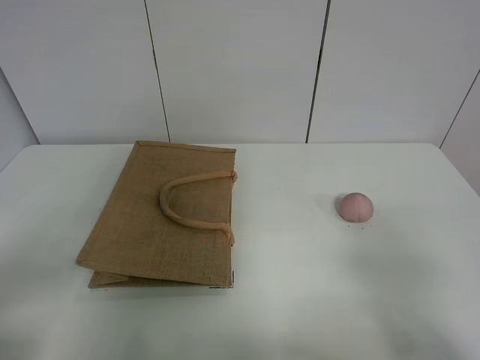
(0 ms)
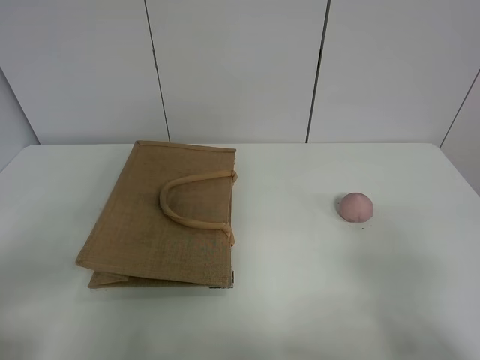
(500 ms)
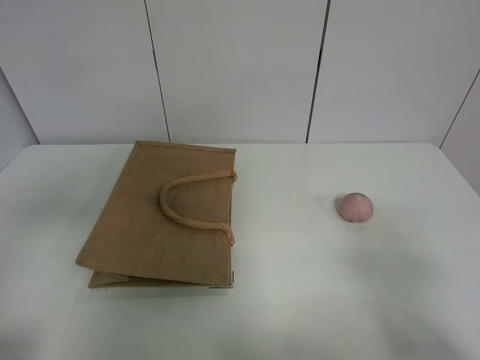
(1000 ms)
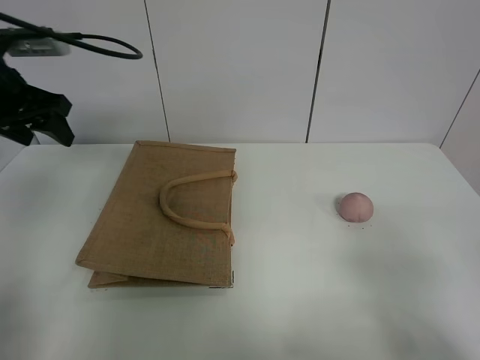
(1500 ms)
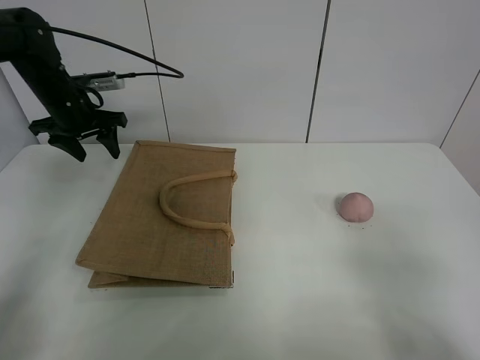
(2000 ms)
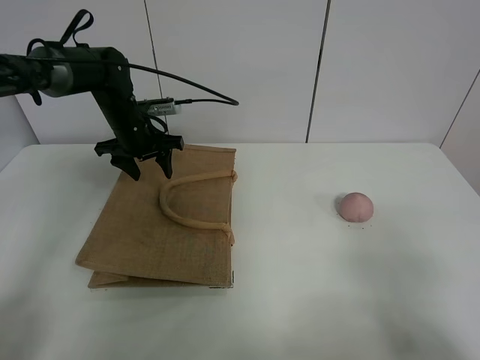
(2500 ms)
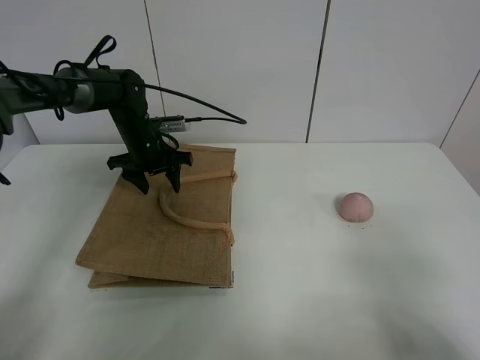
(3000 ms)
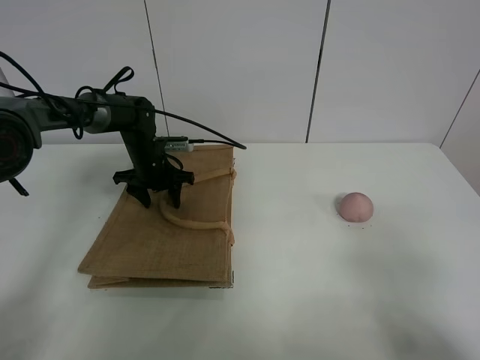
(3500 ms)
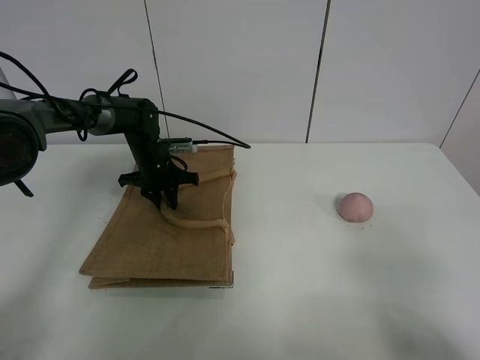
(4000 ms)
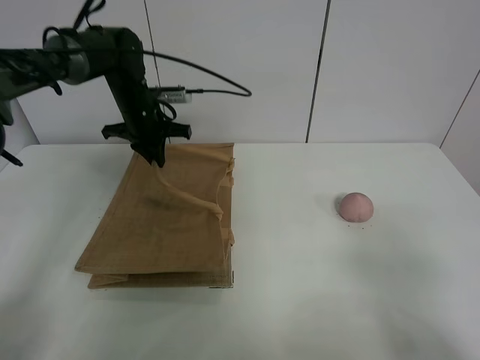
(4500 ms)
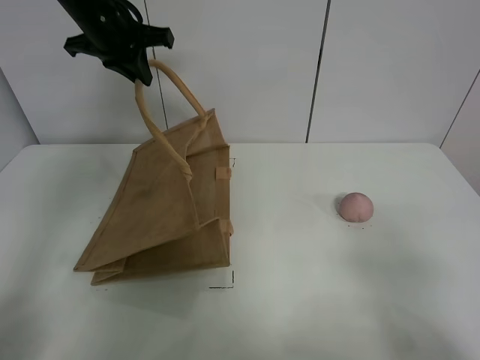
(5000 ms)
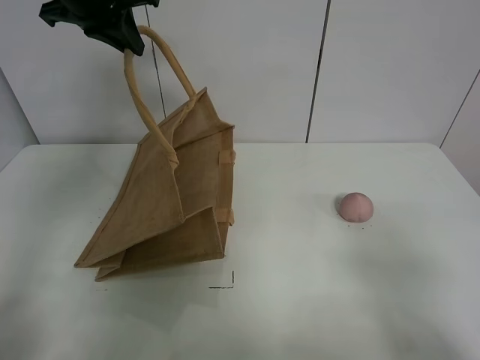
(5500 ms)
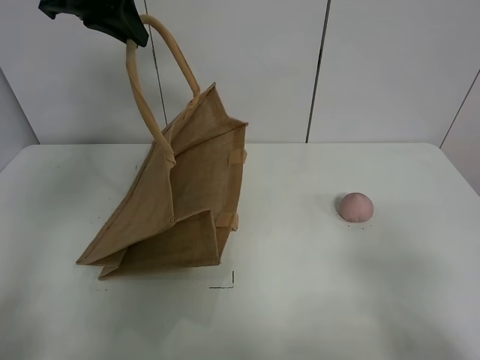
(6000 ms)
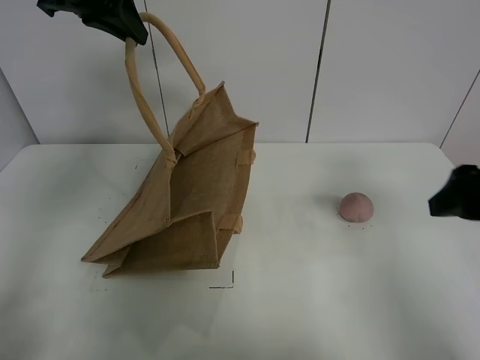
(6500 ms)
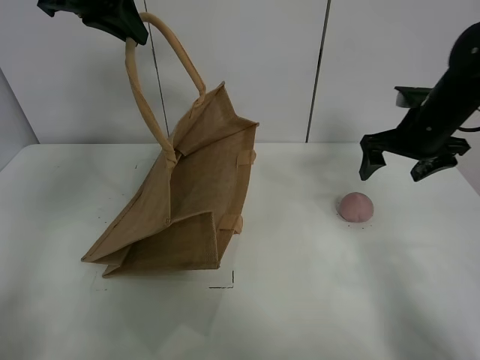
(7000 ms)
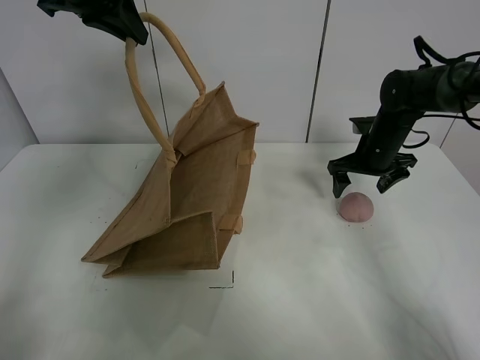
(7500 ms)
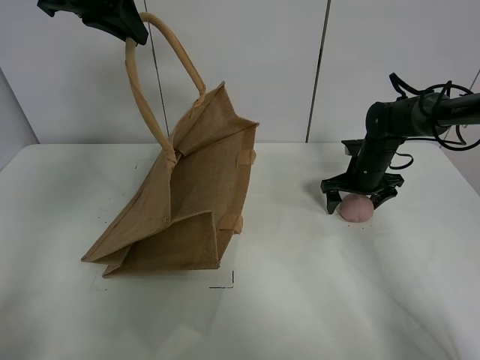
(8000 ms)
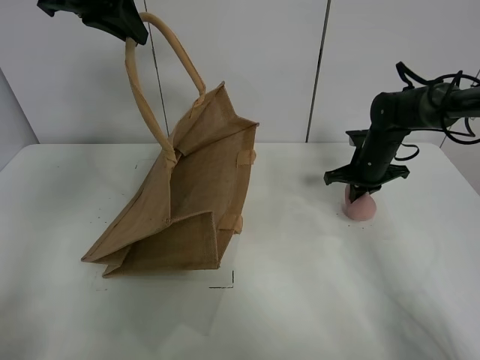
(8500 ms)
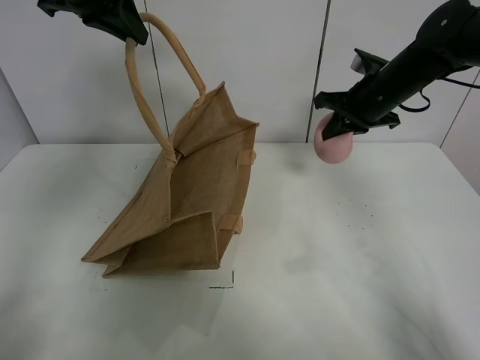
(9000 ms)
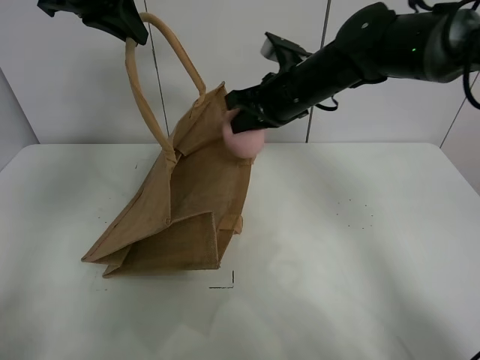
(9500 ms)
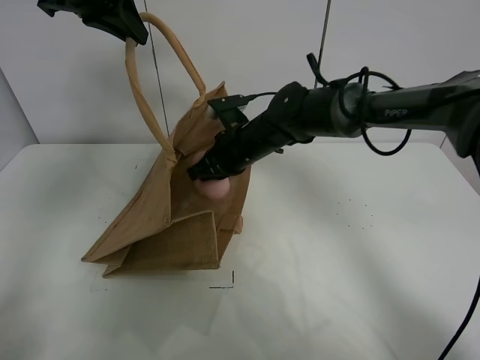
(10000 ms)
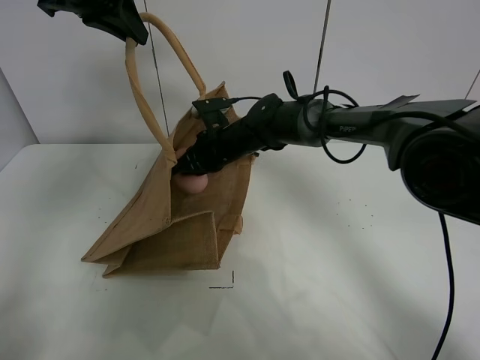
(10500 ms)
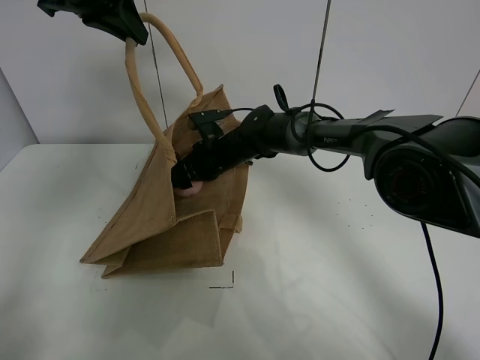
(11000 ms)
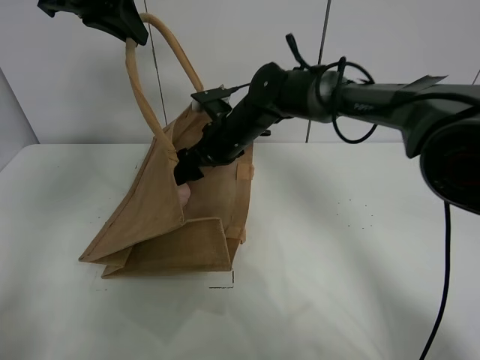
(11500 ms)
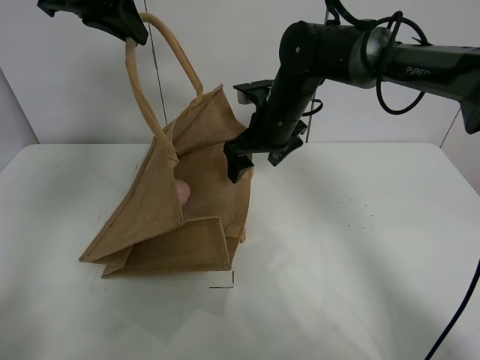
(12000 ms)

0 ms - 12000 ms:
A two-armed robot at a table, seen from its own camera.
Task of the whole recording: open the brown linen bag and put the peach in the bag.
Step, 0 ms - 5500 ms: Lift the handbag with left gripper.
Step, 6000 ms - 8000 ms: Grasp the peach with right gripper.
0 ms - 2000 ms: The left gripper is displaced forward by approximately 40 cm.
2000 ms - 4000 ms: The left gripper heads downward and to the right, covering about 15 cm, and closes up.
4000 ms - 6000 ms: The left gripper travels upward by about 35 cm.
6000 ms - 8000 ms: The right gripper travels forward by roughly 40 cm.
8000 ms - 10000 ms: The right gripper travels to the left by some 25 cm, and closes up.
10000 ms - 12000 ms: The right gripper moves upward, approximately 5 cm, and opens.

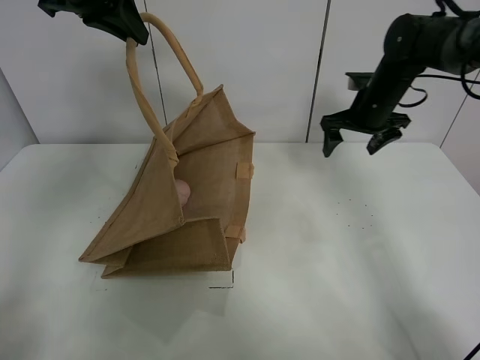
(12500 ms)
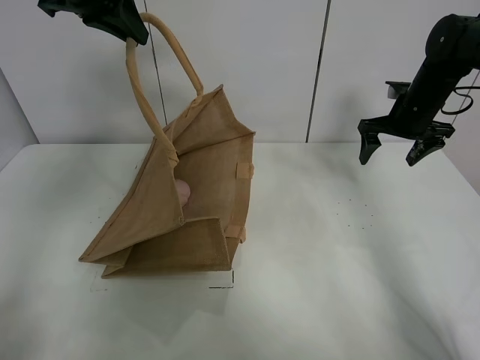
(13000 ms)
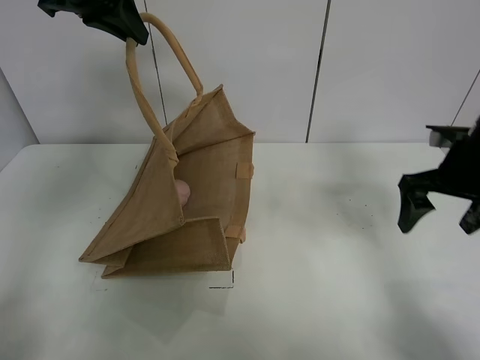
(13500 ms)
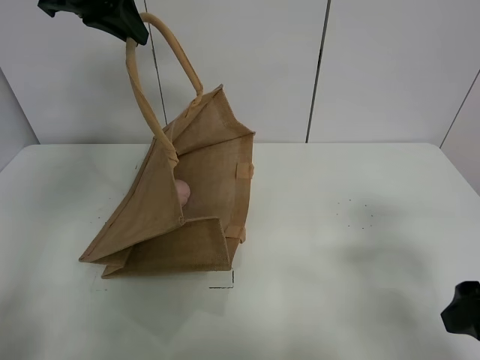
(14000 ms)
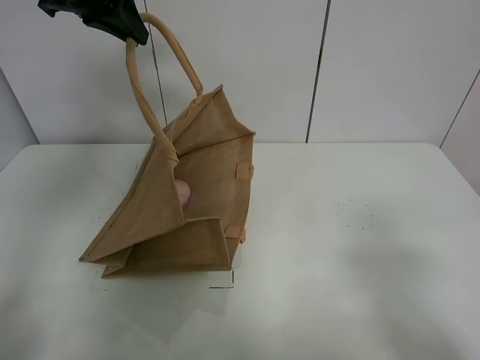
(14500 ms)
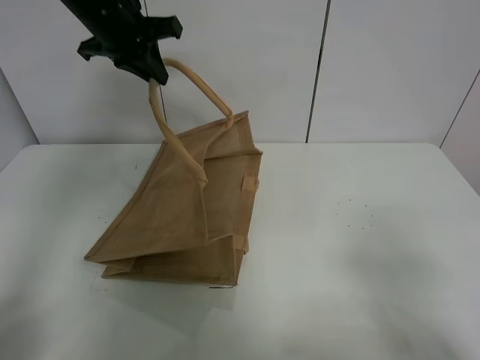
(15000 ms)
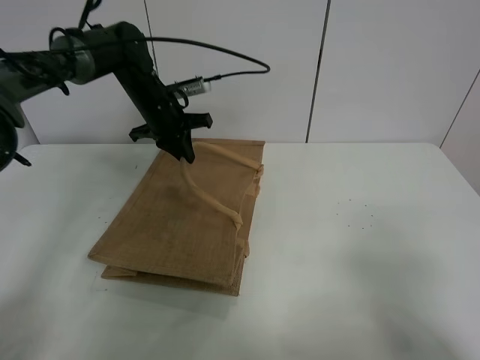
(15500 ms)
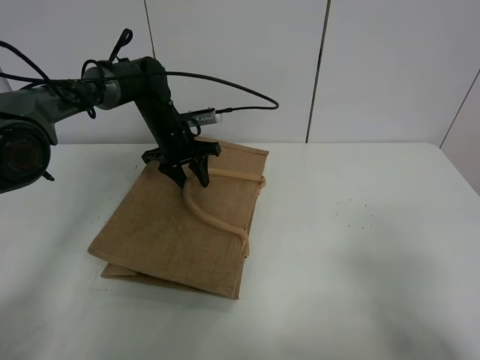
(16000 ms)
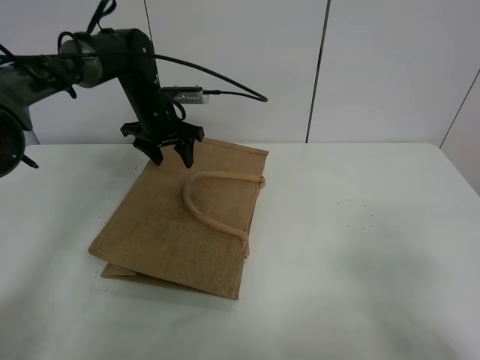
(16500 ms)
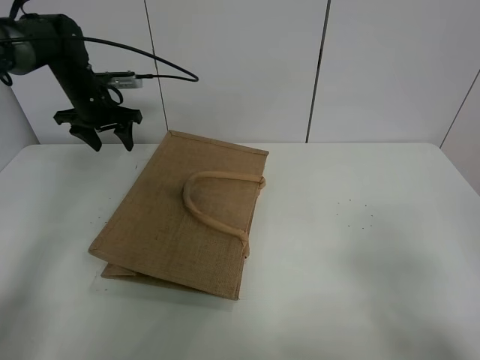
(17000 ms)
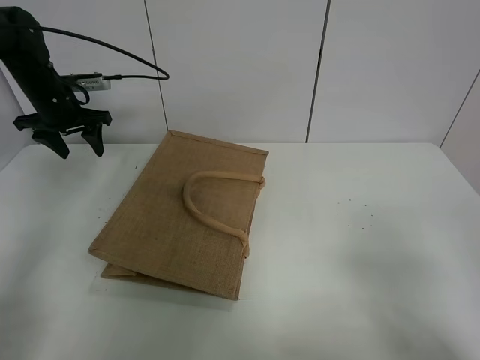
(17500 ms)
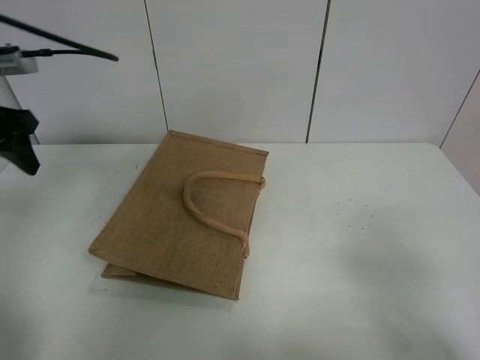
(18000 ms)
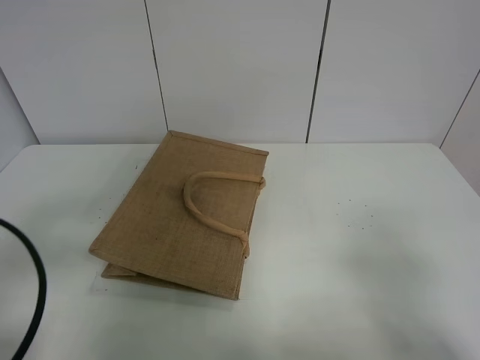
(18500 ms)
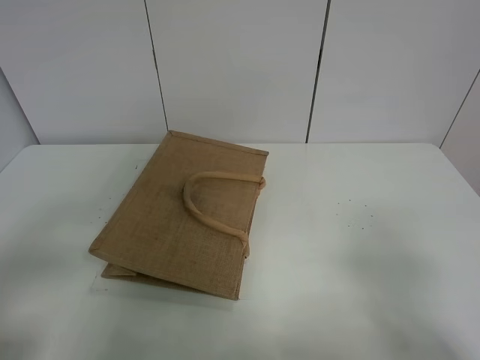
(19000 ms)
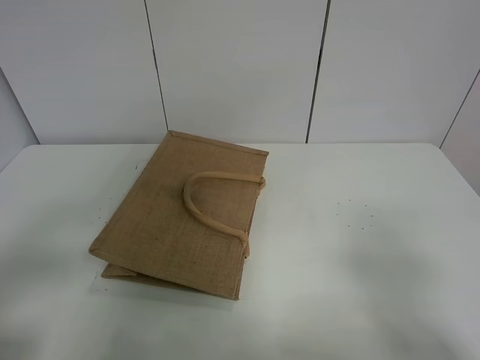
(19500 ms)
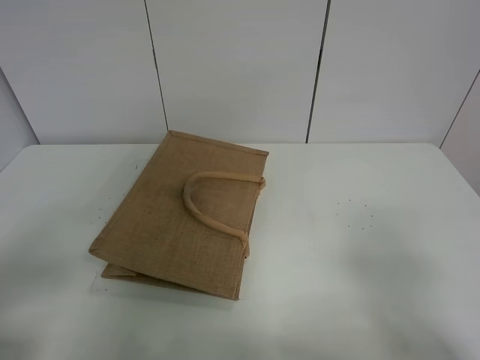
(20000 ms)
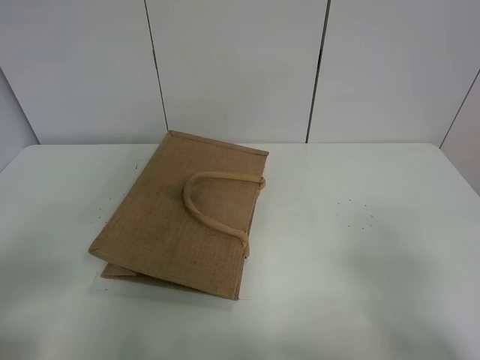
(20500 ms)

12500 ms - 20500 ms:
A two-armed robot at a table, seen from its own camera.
Task of the whole recording: open the brown linen bag and put the peach in the bag.
Step, 12500 ms - 16500 ms: Put down the handbag with left grippe.
12500 ms - 14500 ms: The right gripper is displaced backward by roughly 40 cm.
14500 ms - 16500 ms: The left gripper heads downward and forward, covering roughly 25 cm, and opens its fingers.
16500 ms - 18500 ms: The left gripper goes approximately 40 cm backward.
18500 ms - 20500 ms: The left gripper is displaced backward by approximately 5 cm.

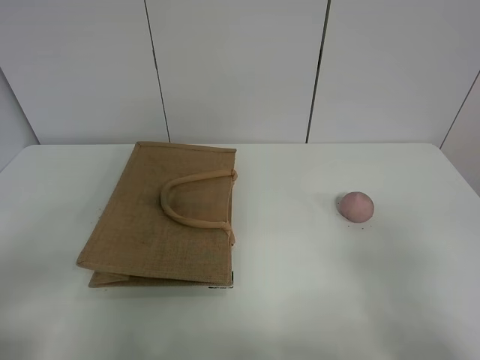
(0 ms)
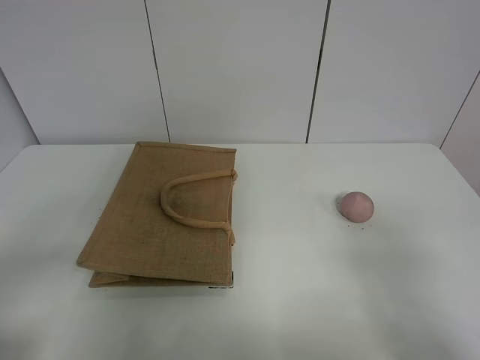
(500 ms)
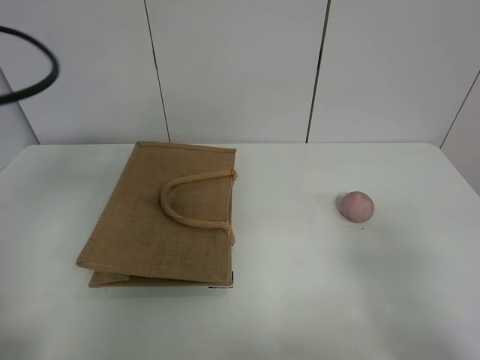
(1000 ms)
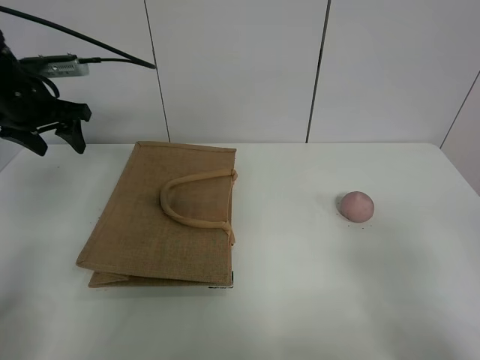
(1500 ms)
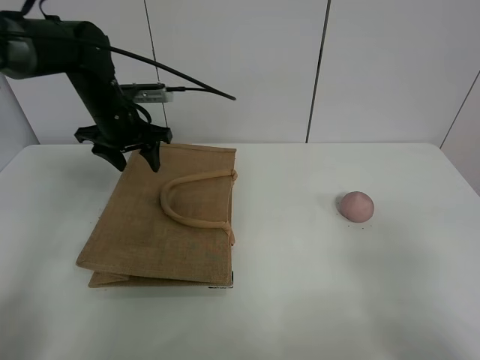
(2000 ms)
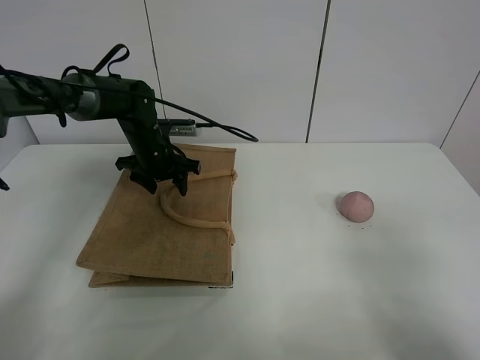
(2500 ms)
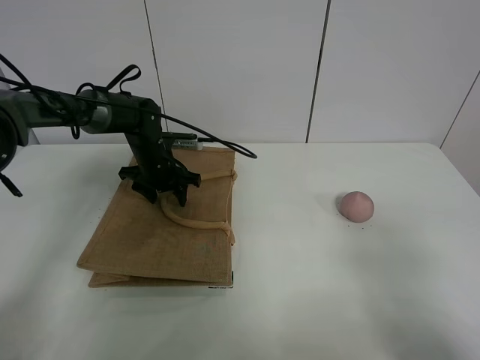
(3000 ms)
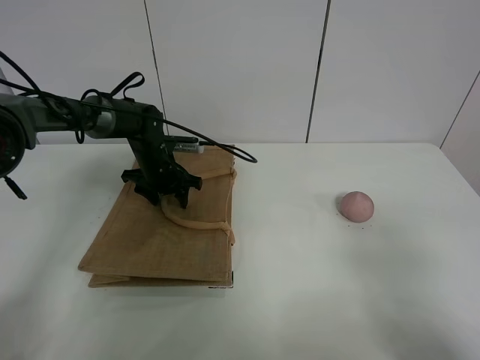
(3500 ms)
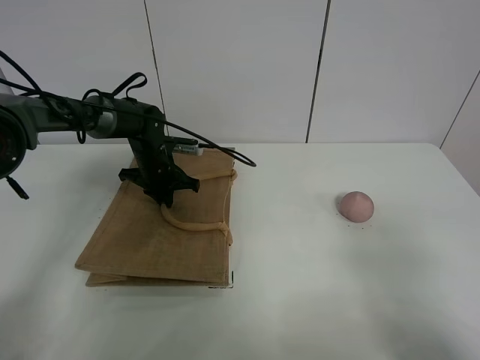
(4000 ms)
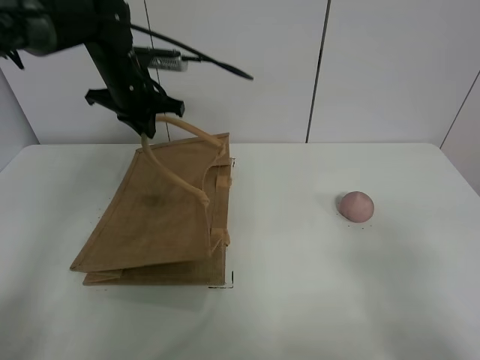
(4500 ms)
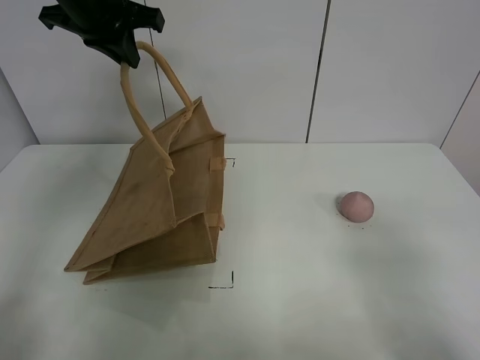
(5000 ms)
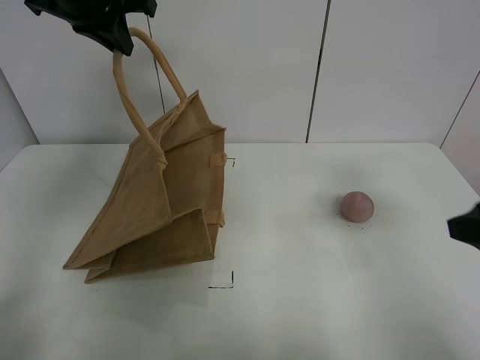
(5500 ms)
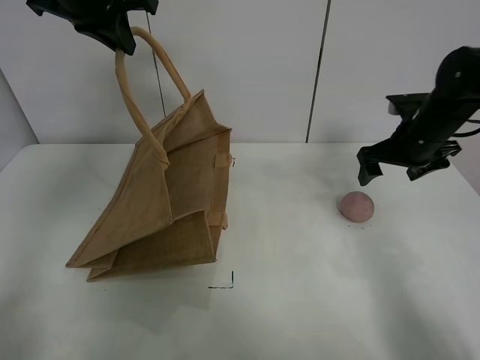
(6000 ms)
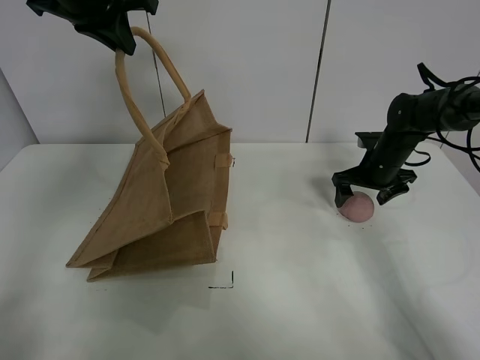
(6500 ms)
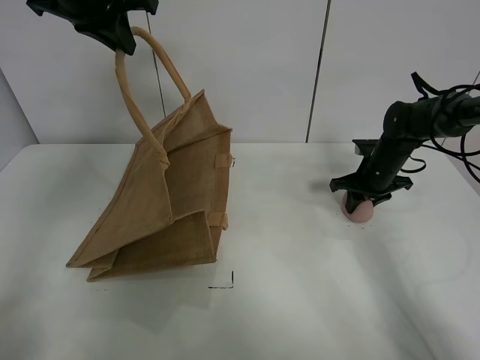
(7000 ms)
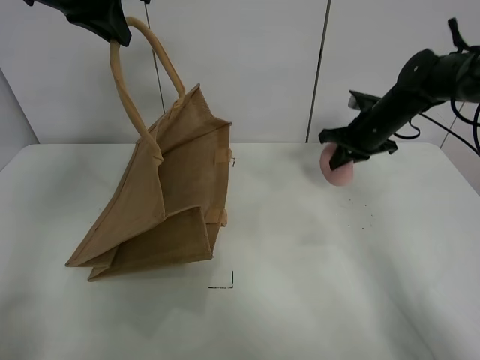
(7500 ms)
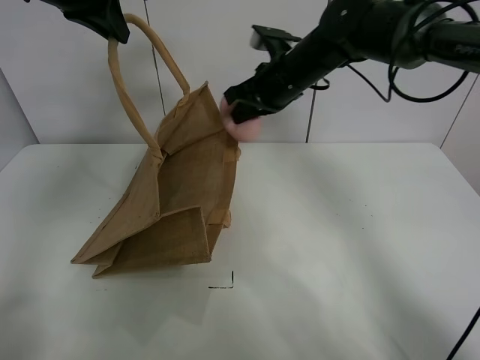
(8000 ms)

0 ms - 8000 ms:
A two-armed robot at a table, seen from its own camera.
Task of the whole recording: open the brown linen bag and put the peach in the bag.
Step, 0 ms - 5000 ms: Lift the handbag with left gripper.
Step, 5500 ms - 7000 ms: Grasp the peach with right gripper.
0 ms - 2000 ms: The left gripper is displaced forward by approximately 40 cm.
2000 ms - 4000 ms: The left gripper is displaced downward by about 10 cm, and closes up.
4000 ms - 6000 ms: The right gripper goes roughly 40 cm forward. The left gripper goes roughly 30 cm upward.
6000 ms - 8000 ms: The right gripper shifts some 20 cm to the left, and closes up.
